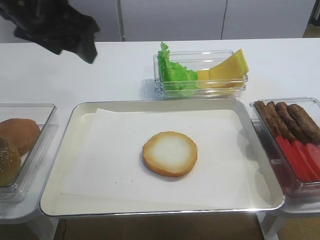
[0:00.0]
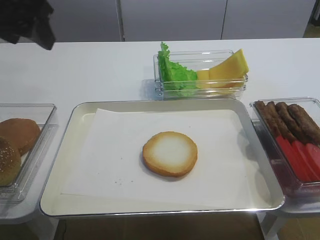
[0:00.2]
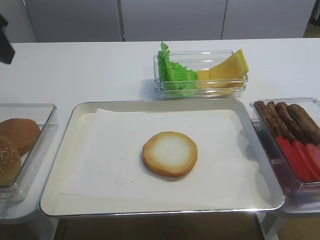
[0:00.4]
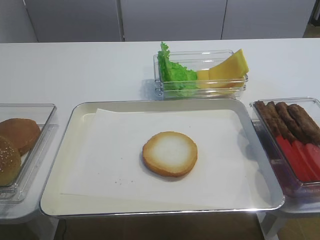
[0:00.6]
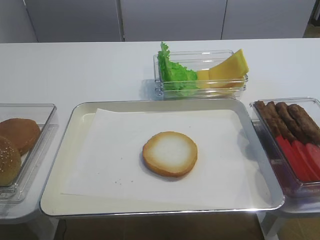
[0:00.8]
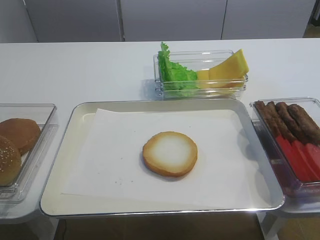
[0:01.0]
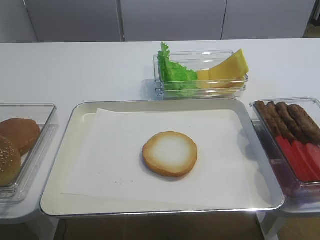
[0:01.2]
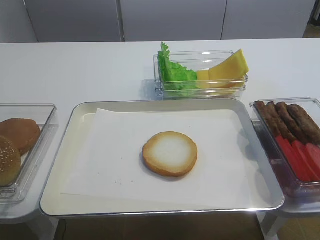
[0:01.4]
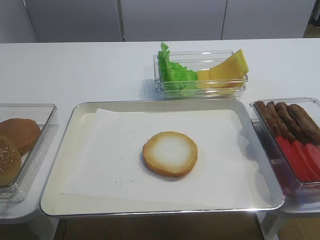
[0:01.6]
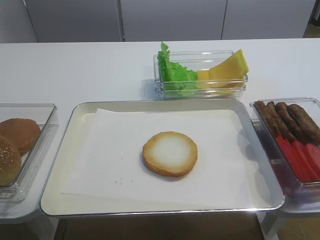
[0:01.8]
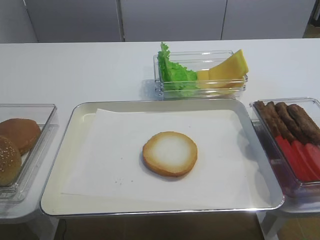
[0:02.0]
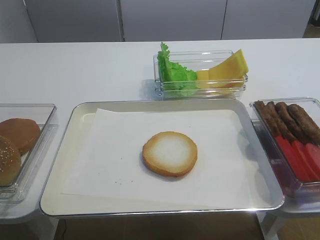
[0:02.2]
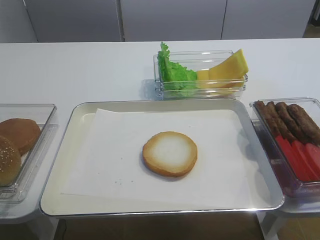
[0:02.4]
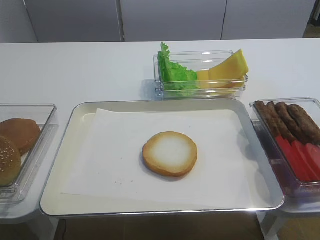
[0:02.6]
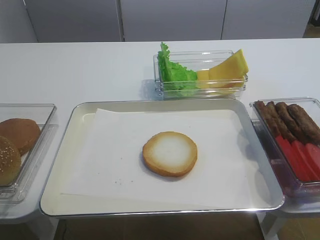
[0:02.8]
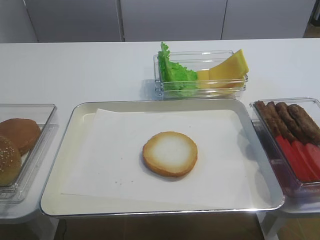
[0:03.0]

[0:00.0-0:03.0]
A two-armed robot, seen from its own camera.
0:00.0 to 0:01.6: The left gripper shifts about 30 cm backward and to the left.

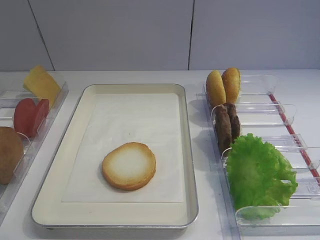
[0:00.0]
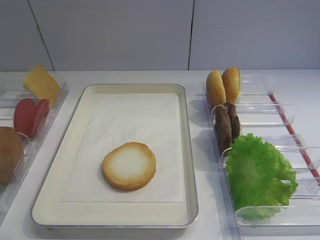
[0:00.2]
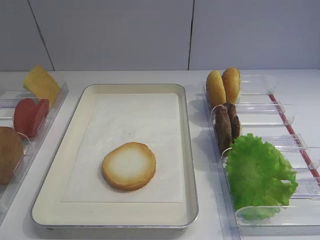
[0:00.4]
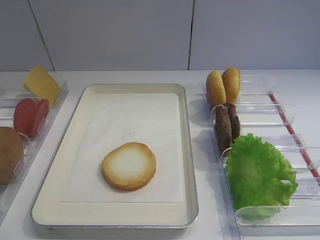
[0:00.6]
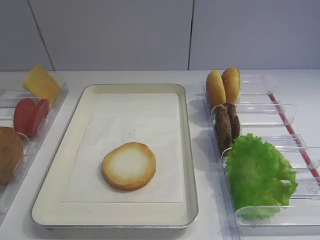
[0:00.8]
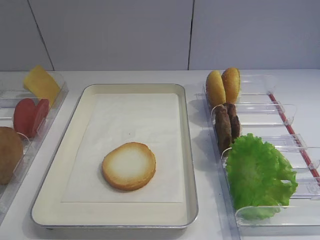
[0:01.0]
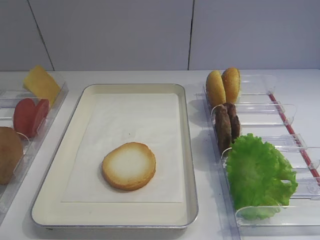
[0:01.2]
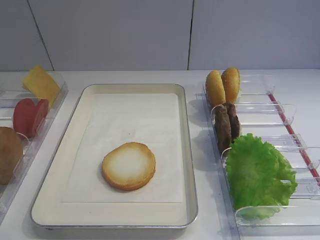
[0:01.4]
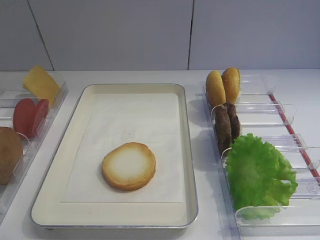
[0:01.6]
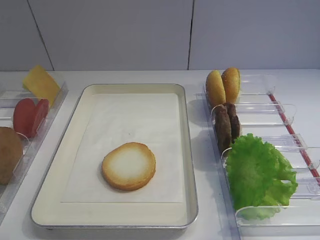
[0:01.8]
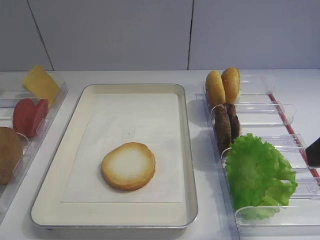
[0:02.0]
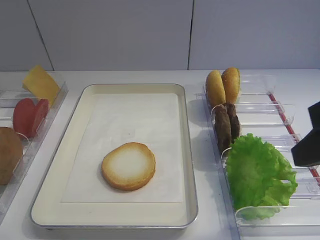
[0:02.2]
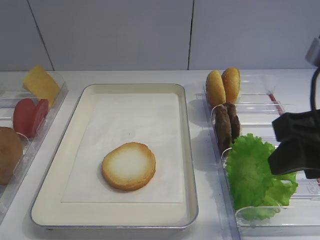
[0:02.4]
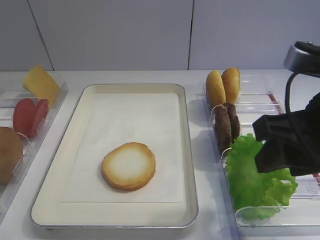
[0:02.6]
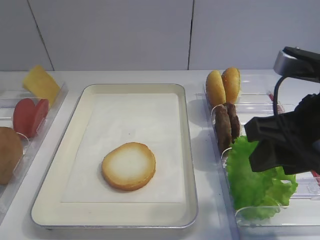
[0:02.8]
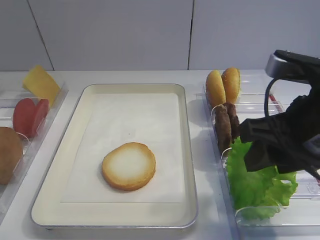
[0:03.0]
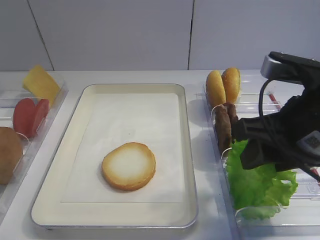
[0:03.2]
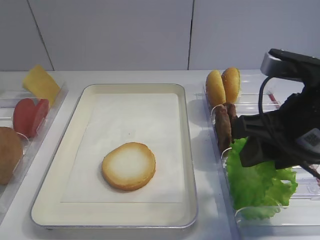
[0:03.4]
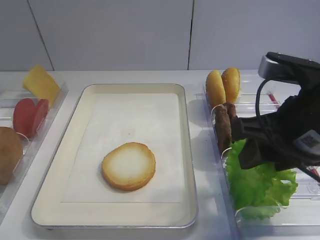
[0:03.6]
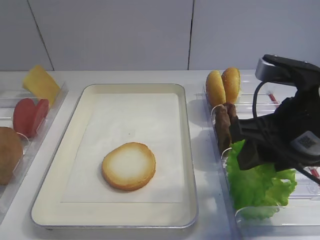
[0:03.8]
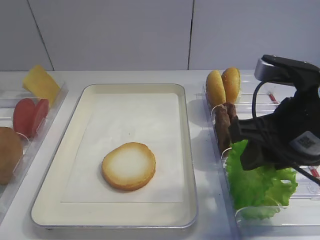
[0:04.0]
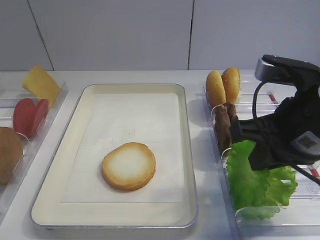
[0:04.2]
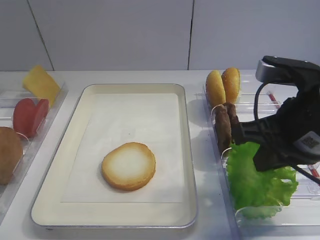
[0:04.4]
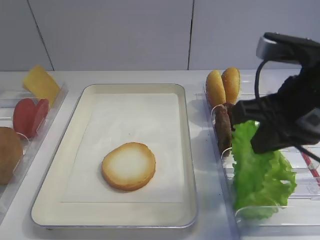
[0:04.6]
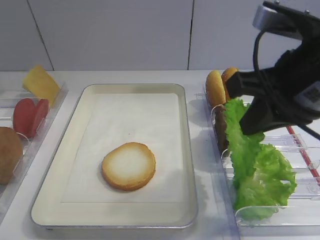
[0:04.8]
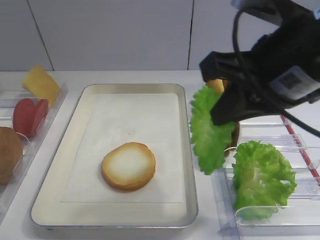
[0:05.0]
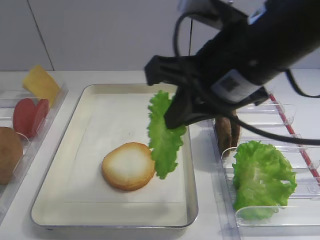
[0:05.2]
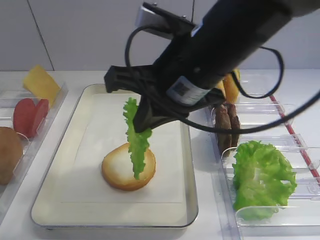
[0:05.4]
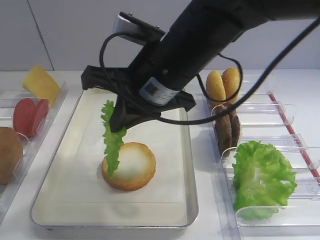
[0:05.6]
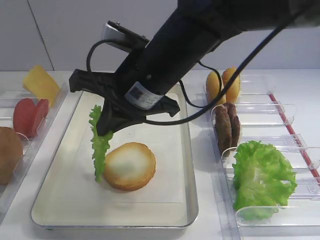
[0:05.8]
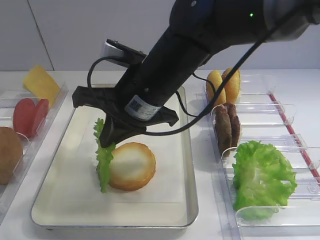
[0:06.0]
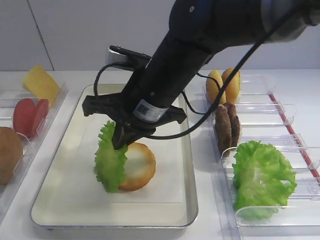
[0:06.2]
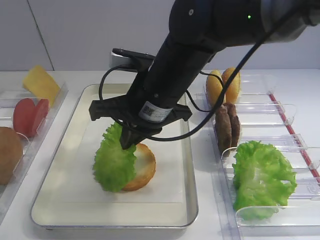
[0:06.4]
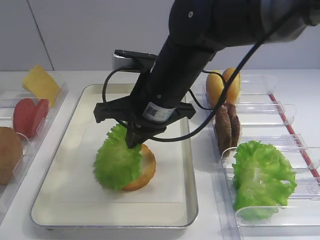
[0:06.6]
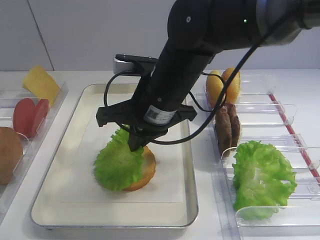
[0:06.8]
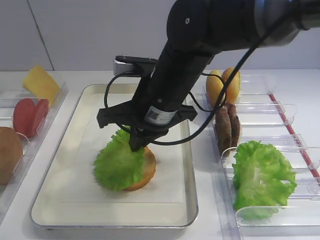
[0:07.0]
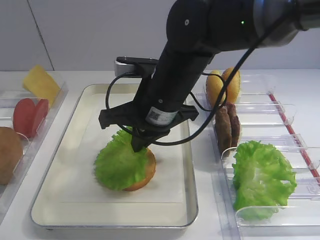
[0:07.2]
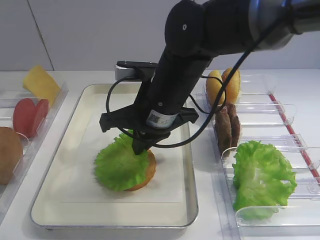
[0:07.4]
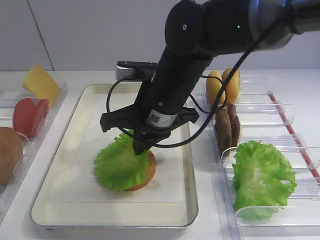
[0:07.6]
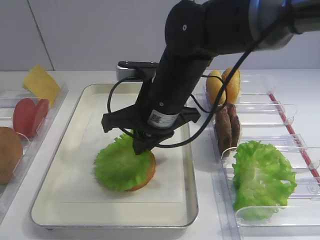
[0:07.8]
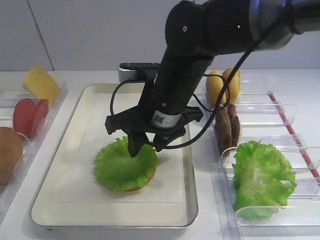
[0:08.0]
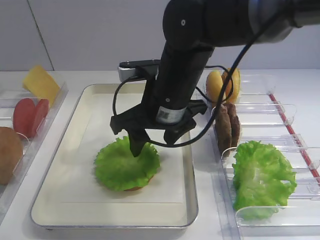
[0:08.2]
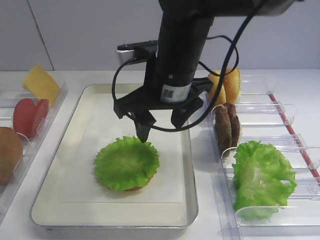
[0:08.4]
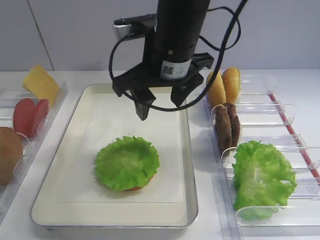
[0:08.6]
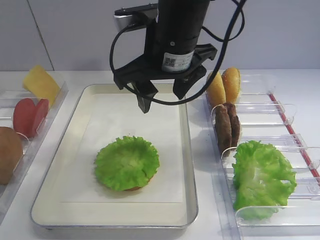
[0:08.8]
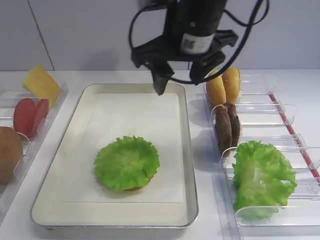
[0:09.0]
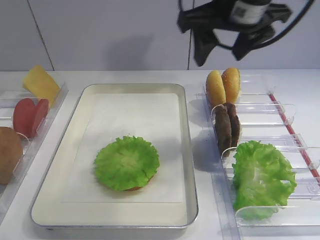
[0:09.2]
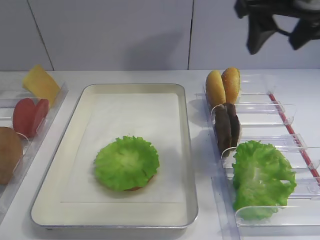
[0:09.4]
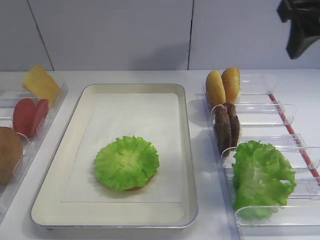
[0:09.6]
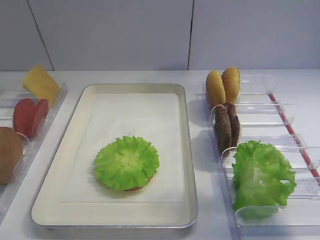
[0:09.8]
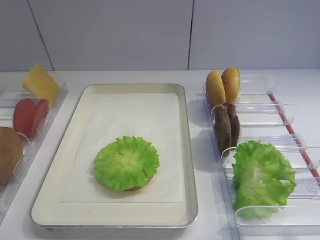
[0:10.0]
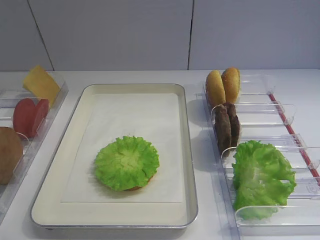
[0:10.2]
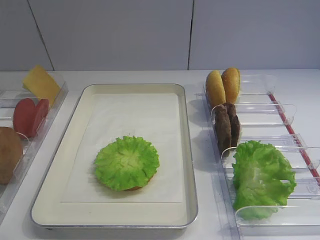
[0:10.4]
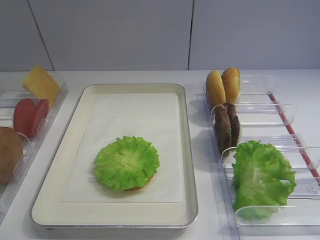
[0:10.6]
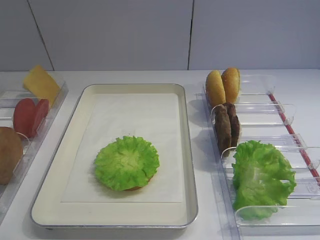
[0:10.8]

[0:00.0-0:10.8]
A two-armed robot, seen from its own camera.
Step, 0:00.0 to 0:04.4: Pick up the lettuce leaf with the right gripper.
Step, 0:04.8 to 0:08.2: Place the lettuce leaf on the bread slice with the right gripper.
0:01.6 to 0:03.0: The right gripper travels forward and to the left by roughly 10 cm.
0:03.0 to 0:04.6: The right gripper closes.
0:04.6 to 0:06.2: The right gripper heads to the left and forward, covering roughly 20 cm.
0:06.2 to 0:07.8: There are only small adjustments of the grippers.
0:07.8 to 0:09.2: The right gripper is displaced upward and to the right by some 15 cm, and opens.
0:09.2 to 0:10.8: The right gripper moves backward and to the right, about 35 cm.

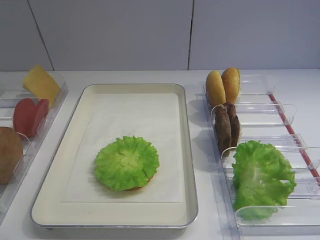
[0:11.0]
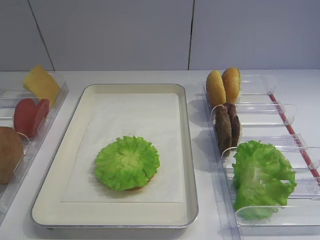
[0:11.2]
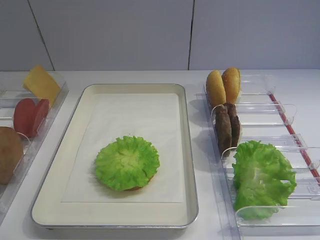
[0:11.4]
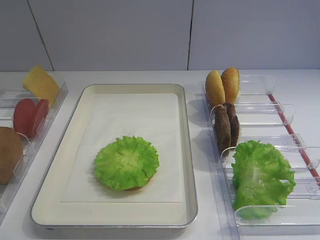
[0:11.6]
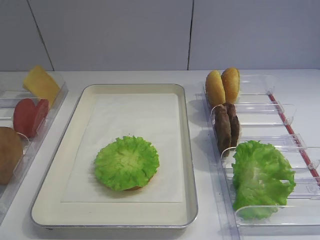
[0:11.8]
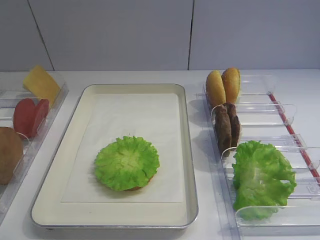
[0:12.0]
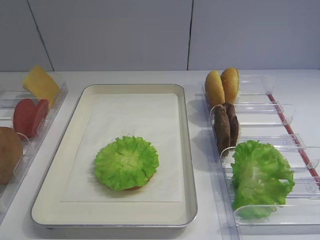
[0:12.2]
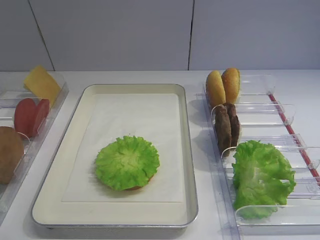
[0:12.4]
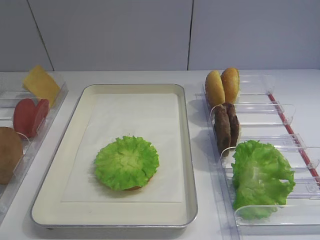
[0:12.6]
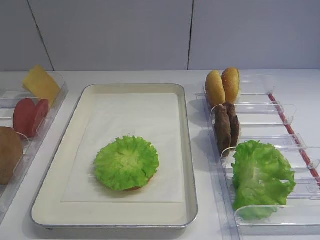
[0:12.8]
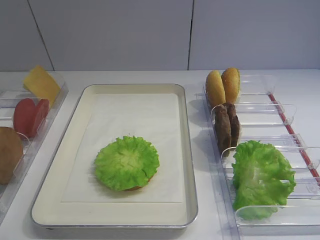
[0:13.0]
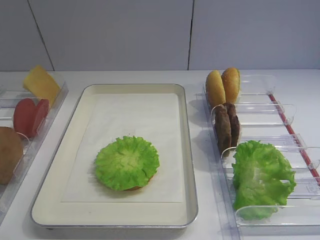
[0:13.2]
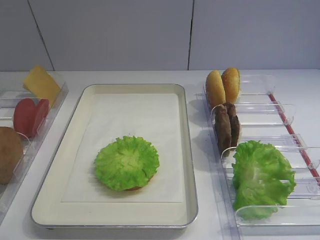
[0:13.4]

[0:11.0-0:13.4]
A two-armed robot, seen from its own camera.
0:11.0 to 0:12.2: There are only small adjustments of the grippers.
0:12.2 to 0:13.4: The two grippers keep their place.

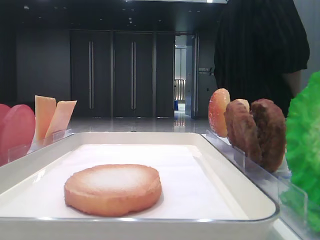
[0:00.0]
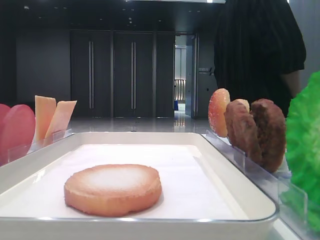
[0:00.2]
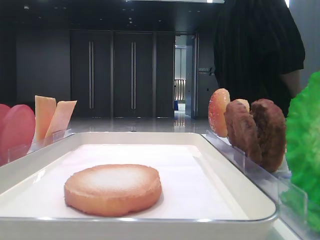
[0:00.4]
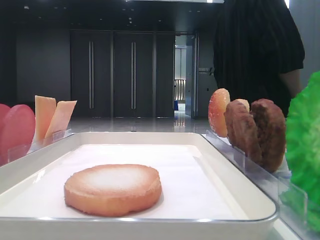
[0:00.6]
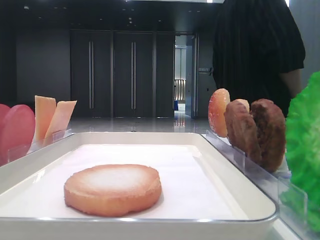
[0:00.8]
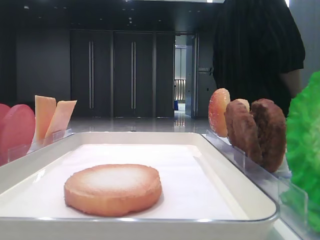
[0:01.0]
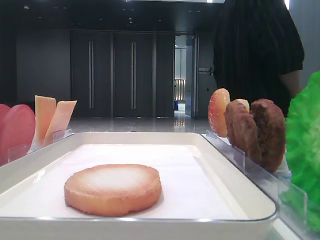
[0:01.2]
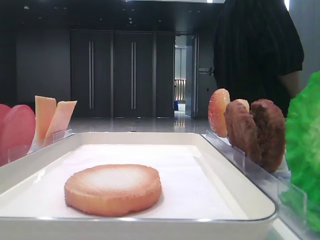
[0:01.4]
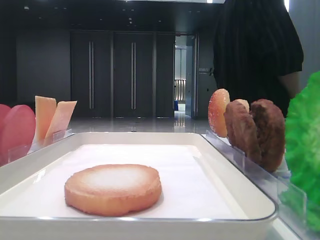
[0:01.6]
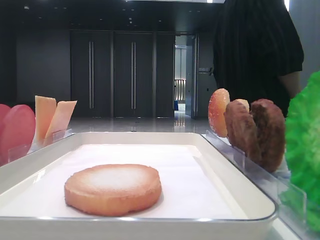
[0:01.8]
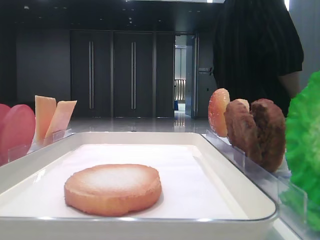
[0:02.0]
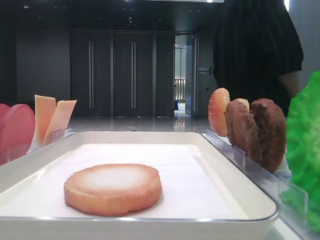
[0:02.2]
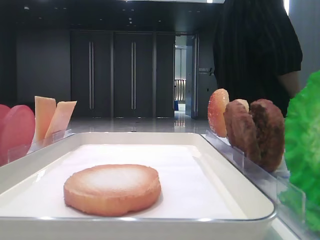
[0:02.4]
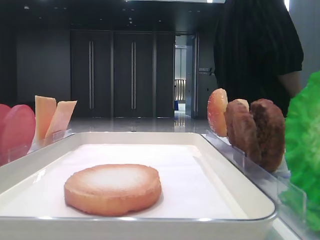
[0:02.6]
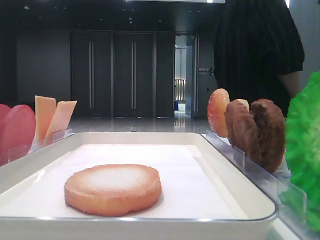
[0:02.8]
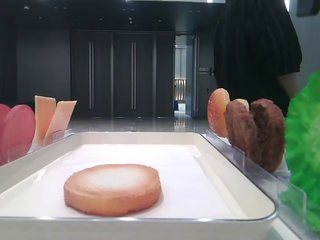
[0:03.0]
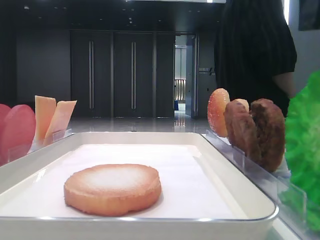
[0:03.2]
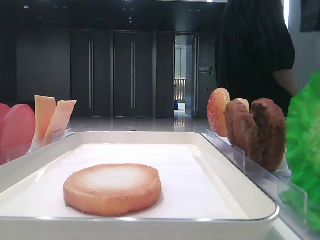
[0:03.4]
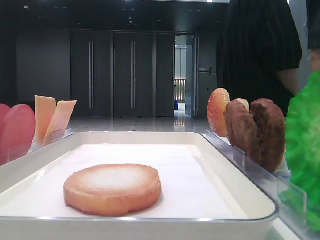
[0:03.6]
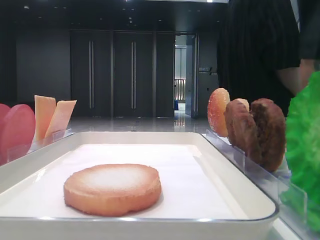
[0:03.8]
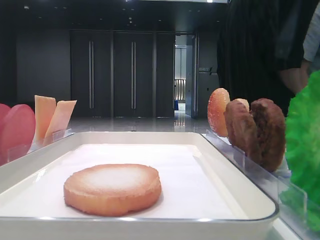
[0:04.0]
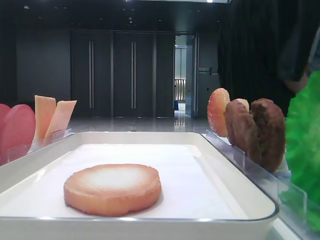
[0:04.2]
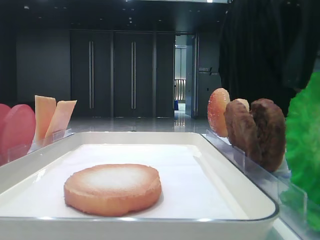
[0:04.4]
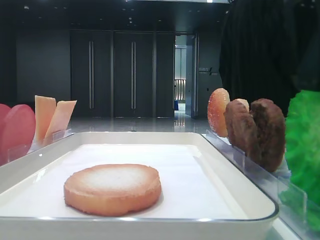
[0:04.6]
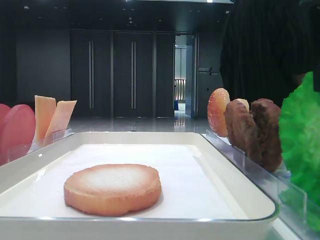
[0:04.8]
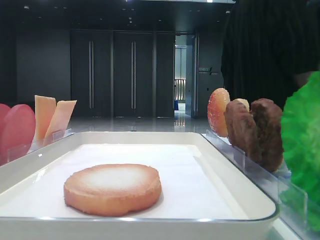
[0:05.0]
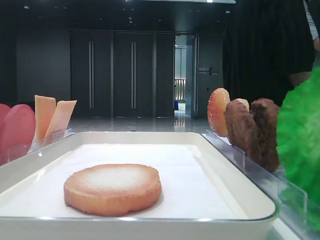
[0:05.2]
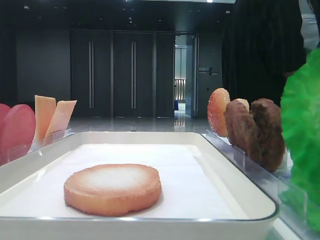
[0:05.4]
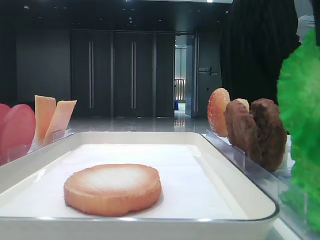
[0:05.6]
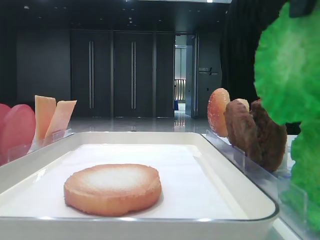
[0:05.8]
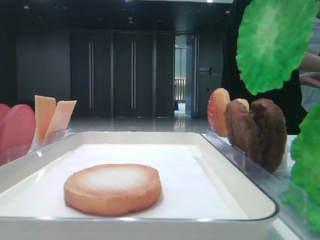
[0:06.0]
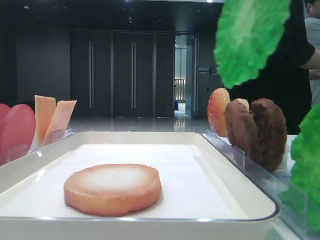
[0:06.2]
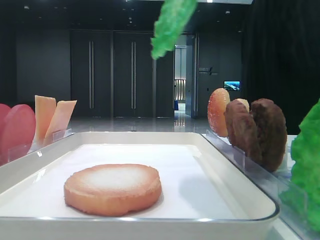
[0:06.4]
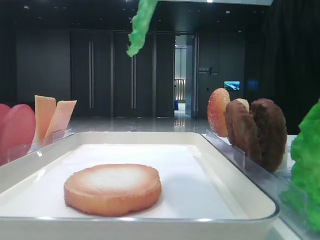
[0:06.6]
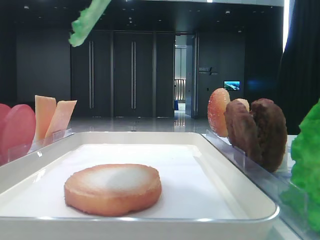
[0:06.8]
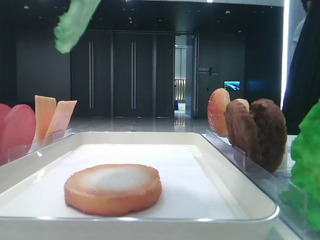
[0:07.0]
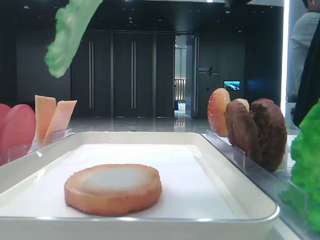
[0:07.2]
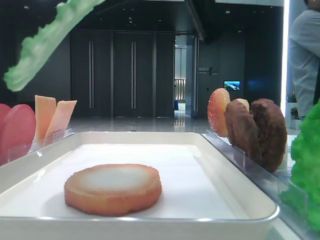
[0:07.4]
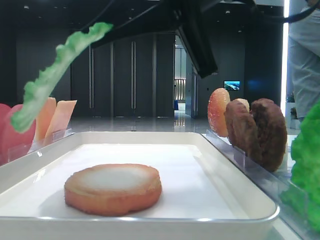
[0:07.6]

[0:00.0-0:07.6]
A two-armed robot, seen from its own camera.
Step, 0:00.0 to 0:04.8: Grab the lettuce leaf with the right hand.
0:01.6 to 0:03.0: The right gripper shifts approximately 10 cm to the left.
0:03.0 to 0:04.6: The right gripper moves downward, roughly 5 cm.
0:04.6 to 0:06.0: The right gripper travels upward by roughly 10 cm, and closes up.
0:06.0 to 0:07.6: The right gripper shifts some 15 cm downward and to the left.
